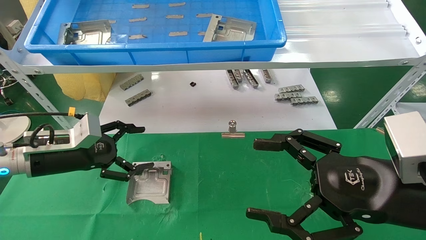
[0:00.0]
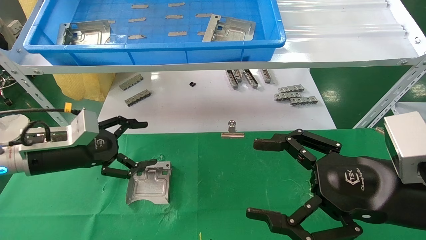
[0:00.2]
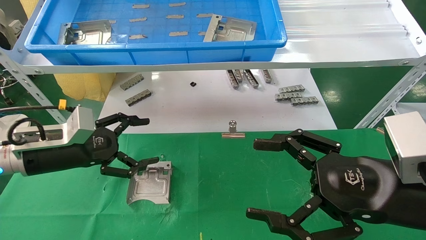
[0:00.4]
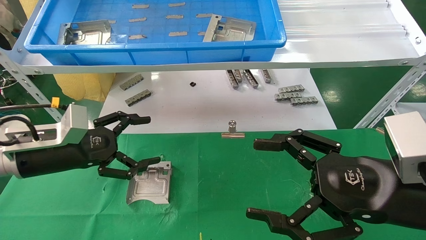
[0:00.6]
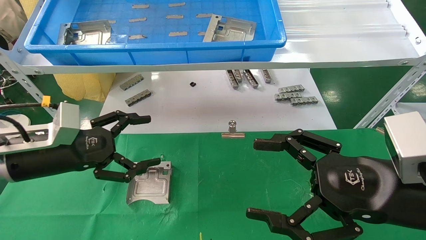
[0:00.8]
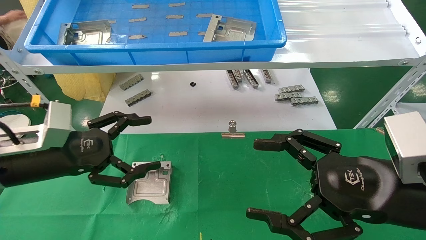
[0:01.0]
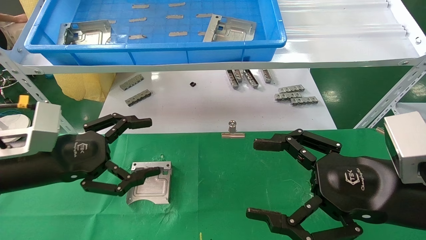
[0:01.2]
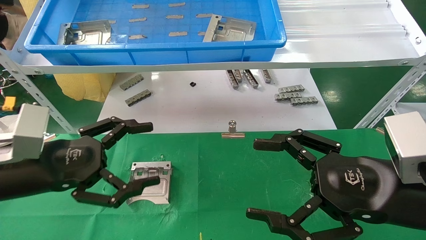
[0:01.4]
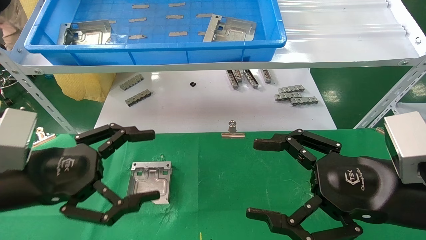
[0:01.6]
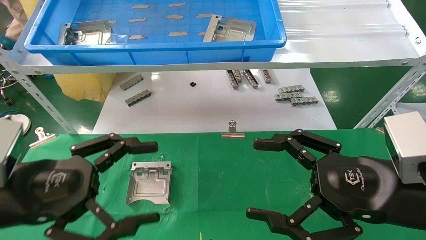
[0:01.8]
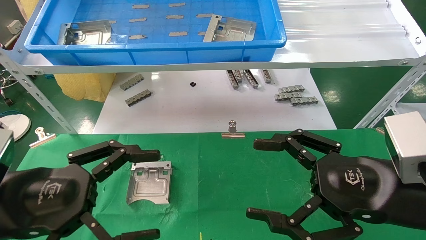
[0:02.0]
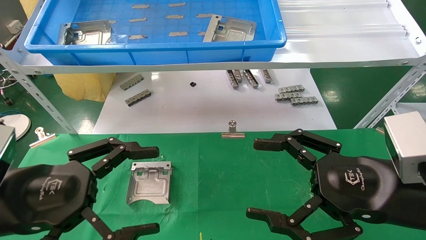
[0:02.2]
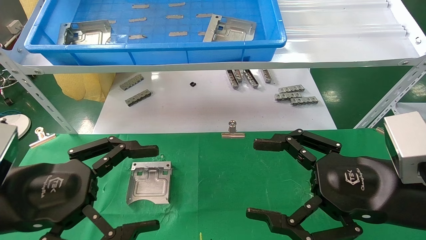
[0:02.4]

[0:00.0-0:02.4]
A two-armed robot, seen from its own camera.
Task of the whole recording: use the mechanical arm to pick up the parts and place them on the table.
0:00.0 to 0:01.2: The left gripper goes some 10 cm backward.
0:01.2 to 0:02.4: The left gripper moves backward, some 10 cm.
